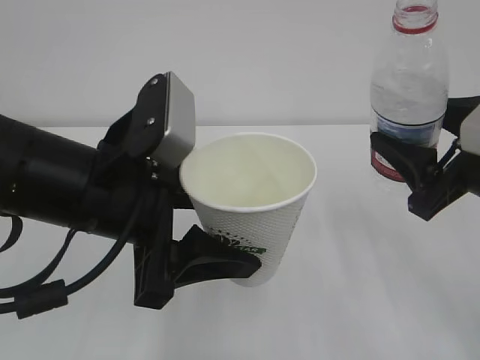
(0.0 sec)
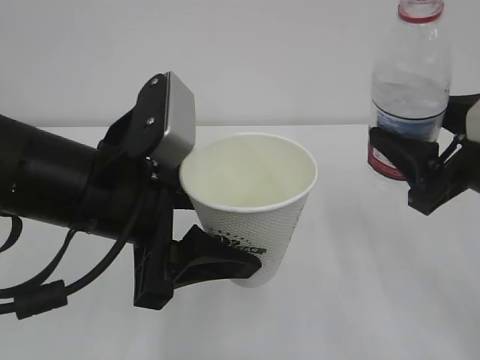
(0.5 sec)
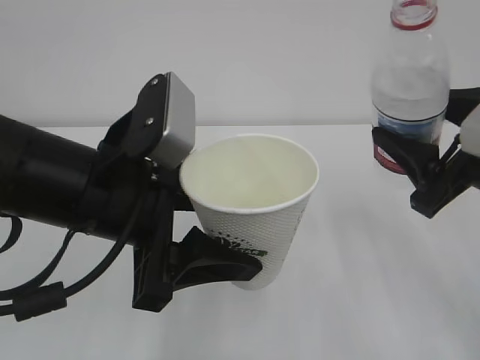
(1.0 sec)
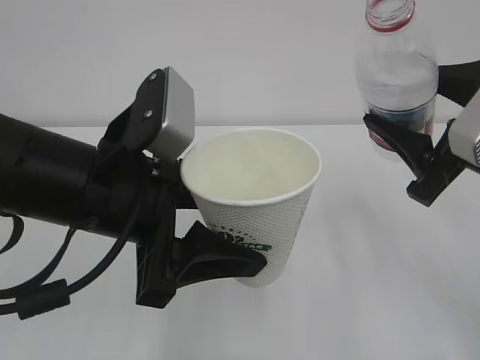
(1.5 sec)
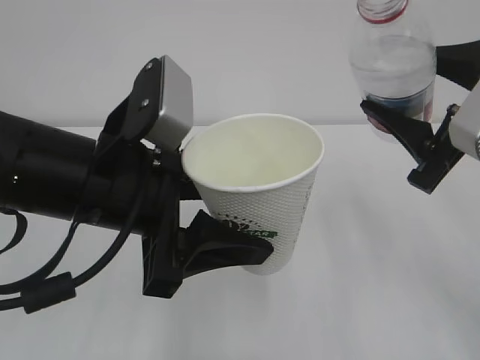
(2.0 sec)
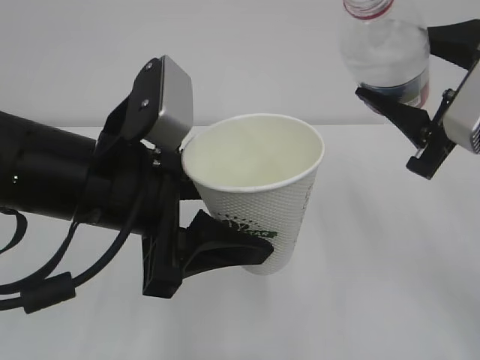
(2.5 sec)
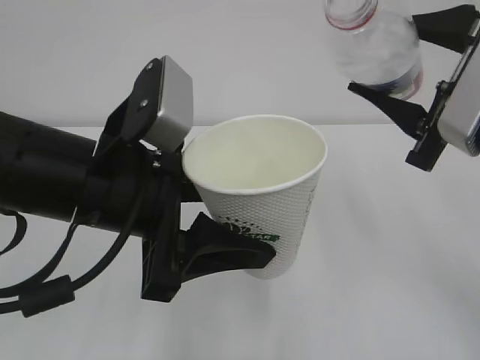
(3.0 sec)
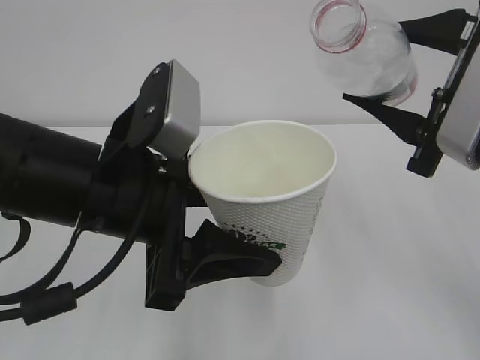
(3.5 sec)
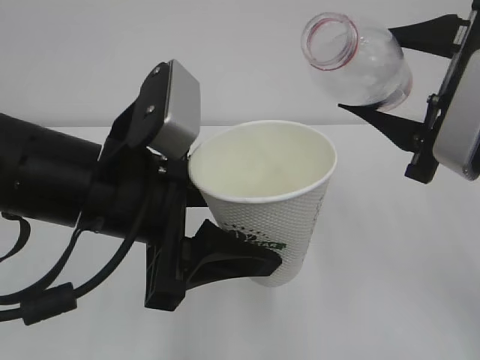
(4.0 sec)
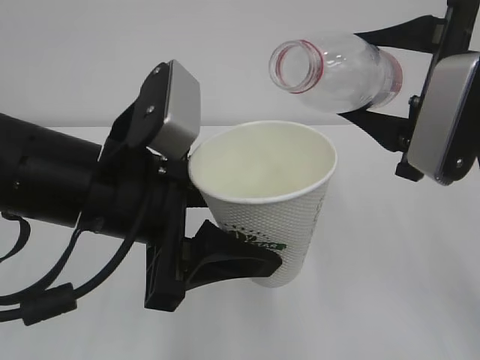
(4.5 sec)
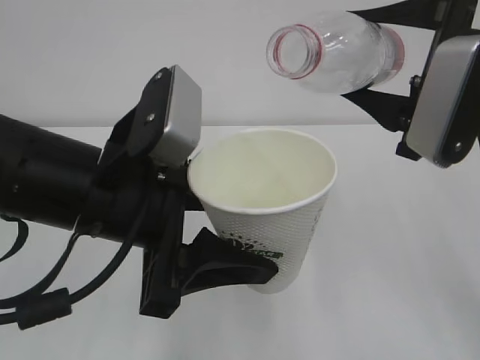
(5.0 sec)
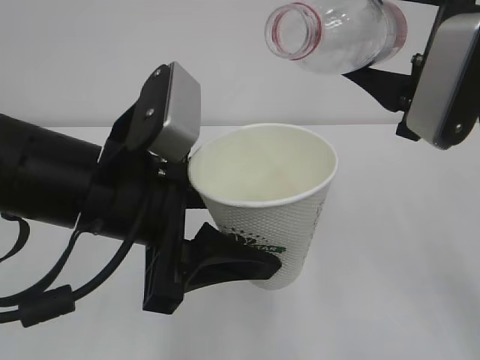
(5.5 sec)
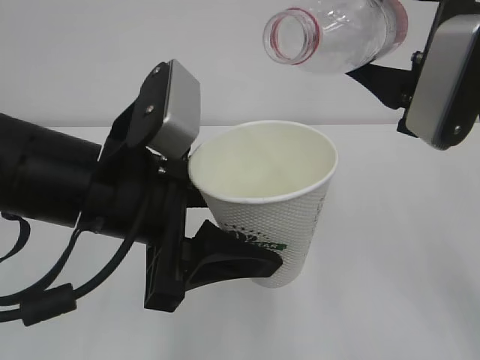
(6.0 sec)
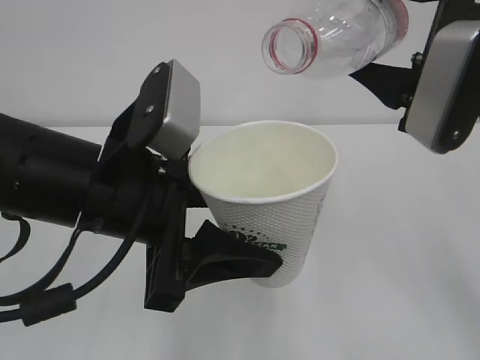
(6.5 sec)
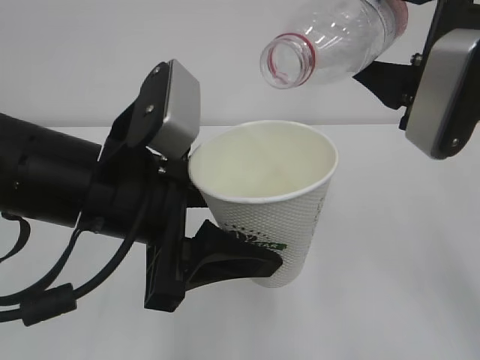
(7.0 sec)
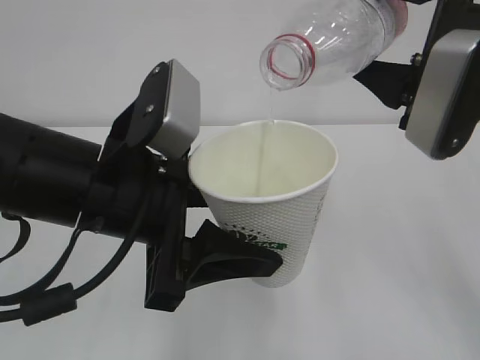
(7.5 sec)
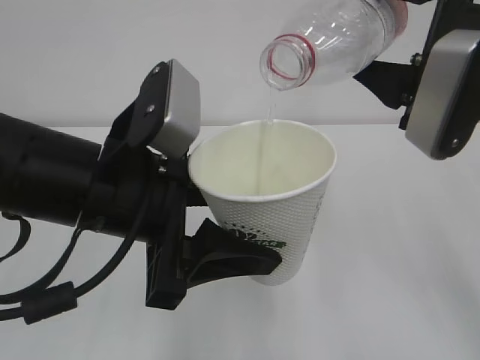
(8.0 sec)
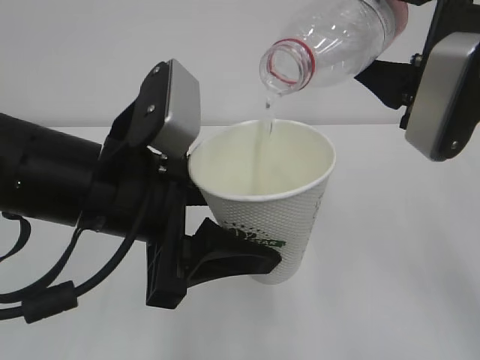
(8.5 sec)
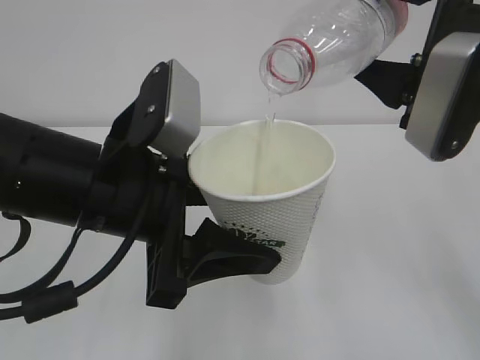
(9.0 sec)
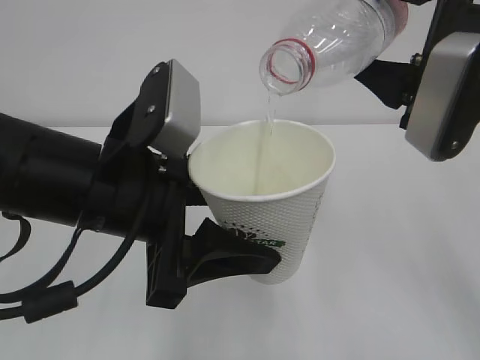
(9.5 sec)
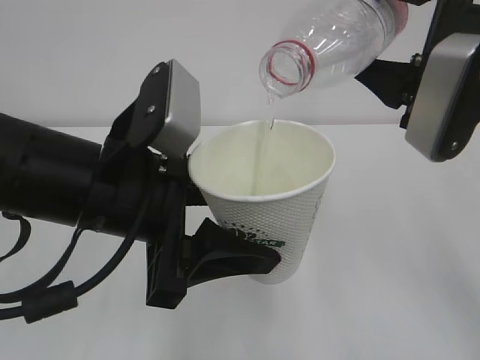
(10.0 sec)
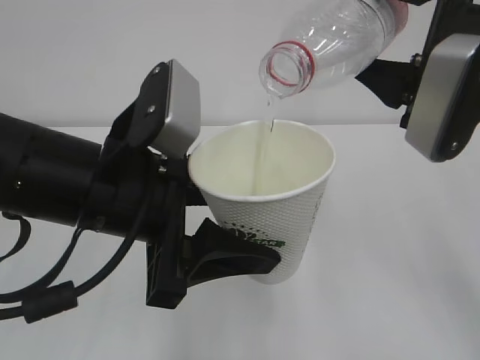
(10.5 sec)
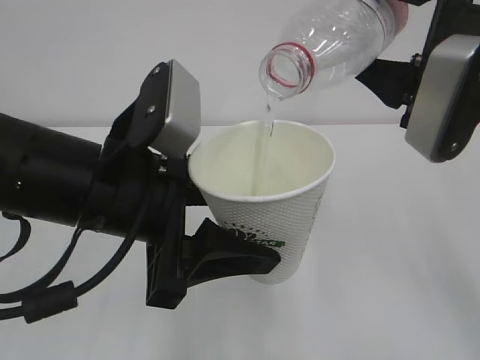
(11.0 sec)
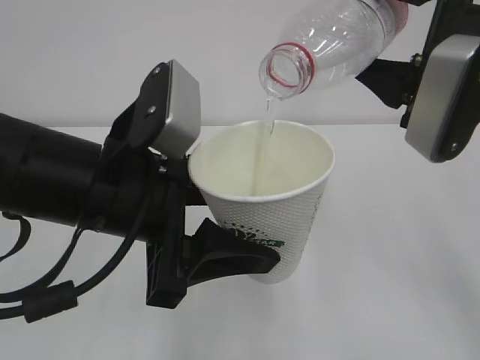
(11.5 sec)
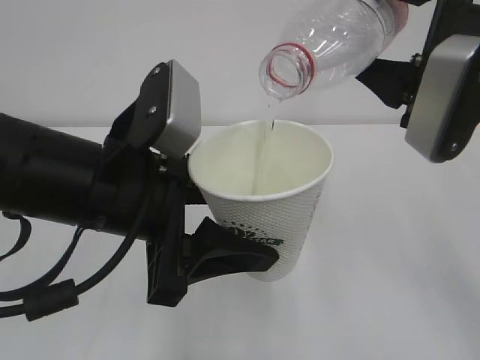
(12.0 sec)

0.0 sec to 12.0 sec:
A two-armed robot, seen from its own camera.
4.0 sec to 6.0 sec: The grippers stay close to where they were, moving slightly.
6.0 sec to 8.0 sec: The grippers stay close to where they were, moving slightly.
8.0 sec to 12.0 sec: Both grippers stay about where they are.

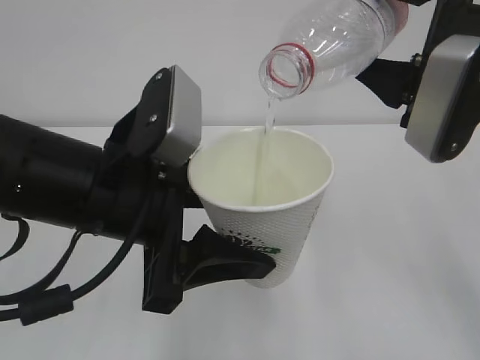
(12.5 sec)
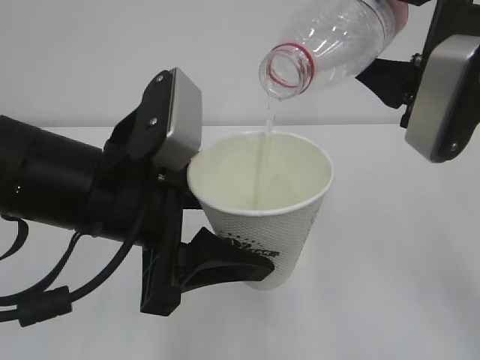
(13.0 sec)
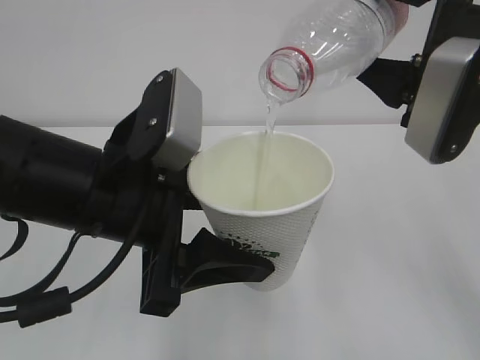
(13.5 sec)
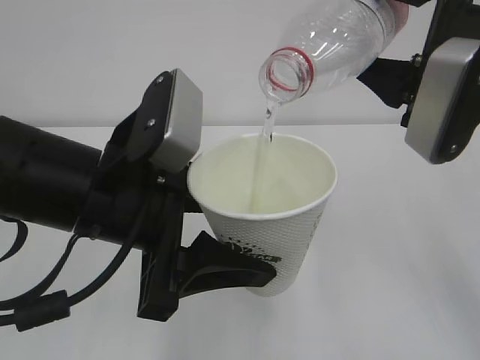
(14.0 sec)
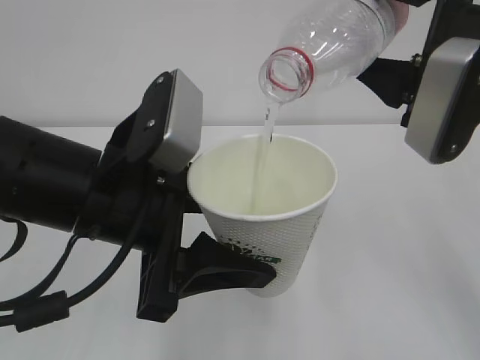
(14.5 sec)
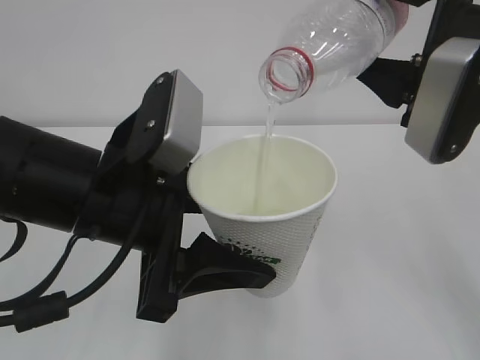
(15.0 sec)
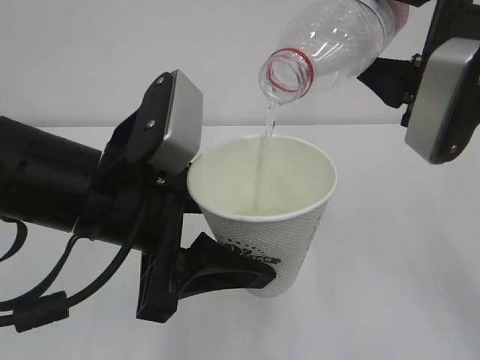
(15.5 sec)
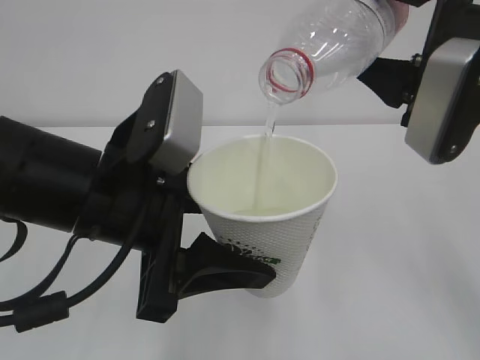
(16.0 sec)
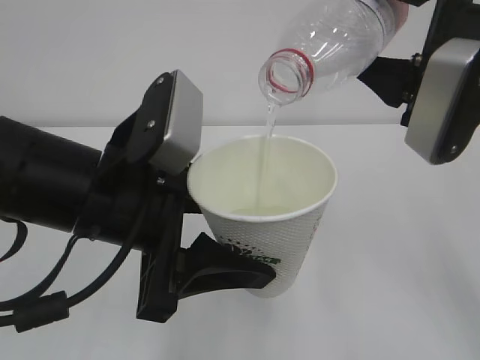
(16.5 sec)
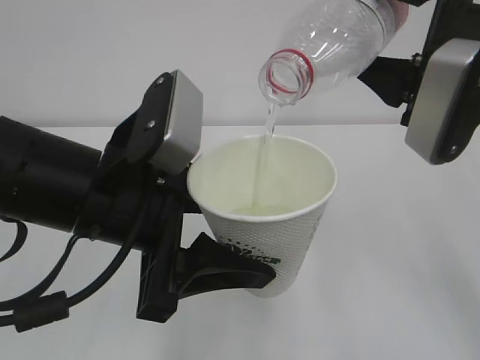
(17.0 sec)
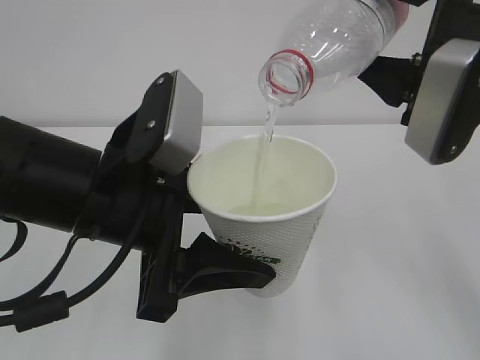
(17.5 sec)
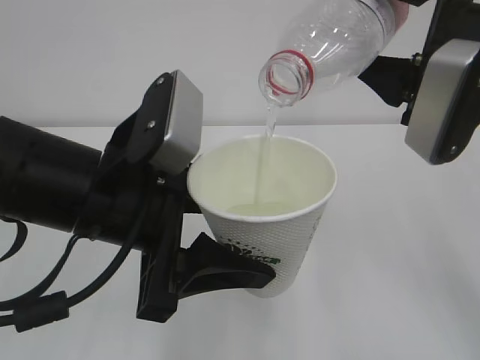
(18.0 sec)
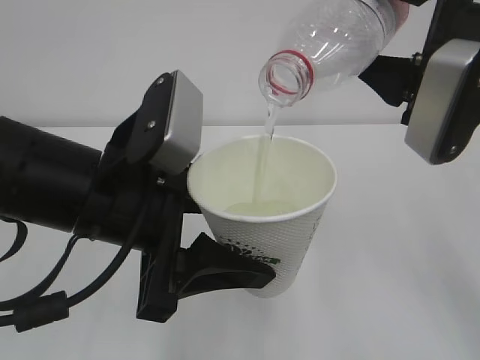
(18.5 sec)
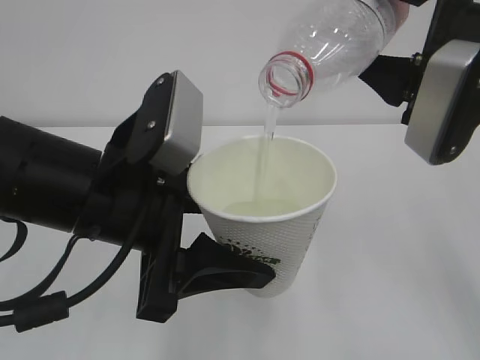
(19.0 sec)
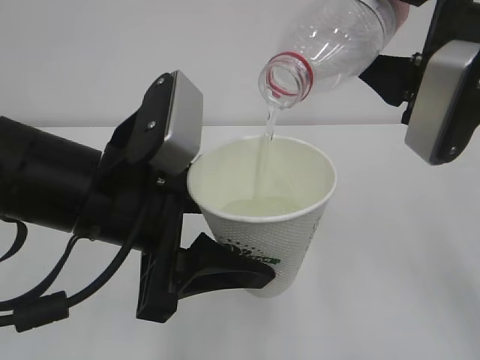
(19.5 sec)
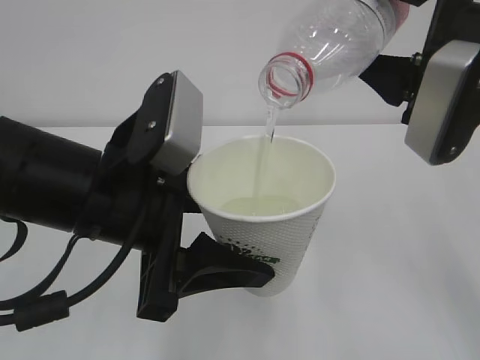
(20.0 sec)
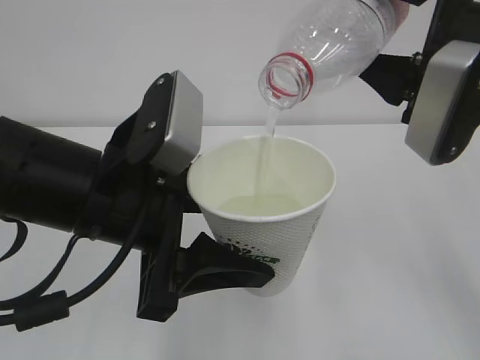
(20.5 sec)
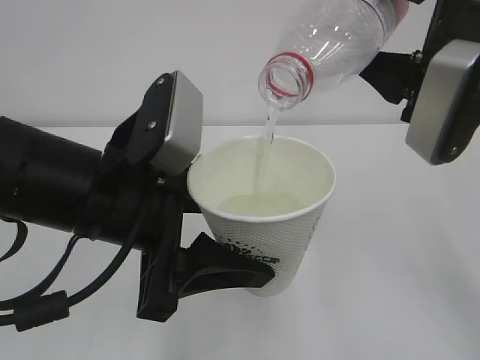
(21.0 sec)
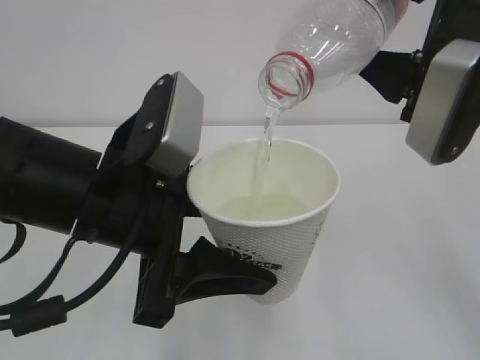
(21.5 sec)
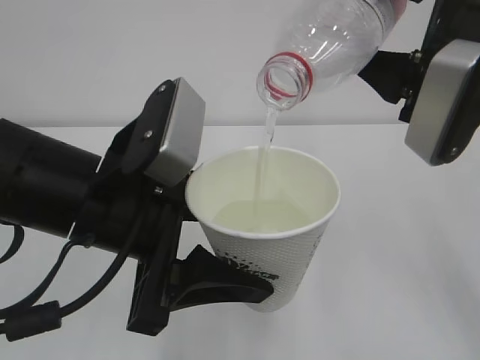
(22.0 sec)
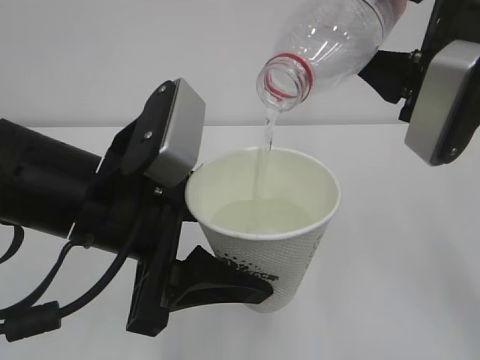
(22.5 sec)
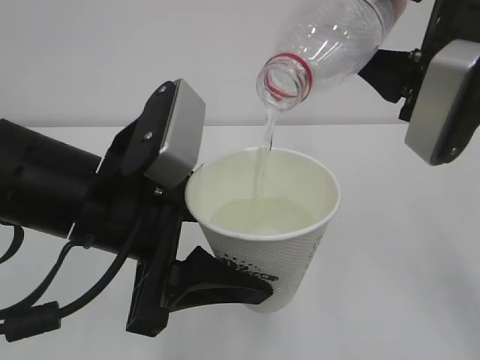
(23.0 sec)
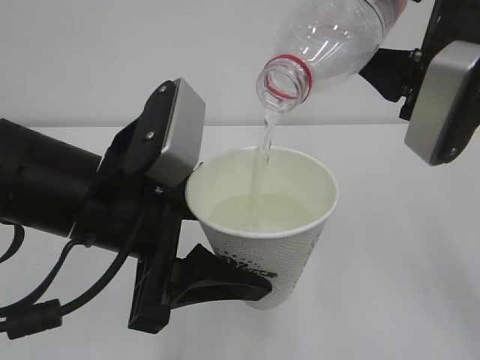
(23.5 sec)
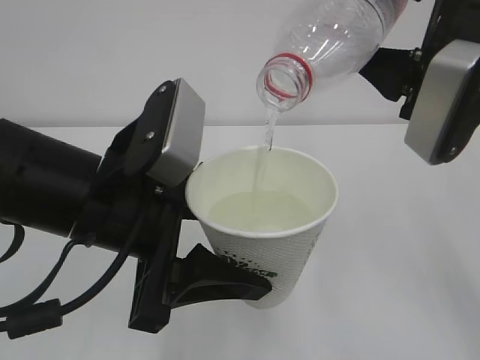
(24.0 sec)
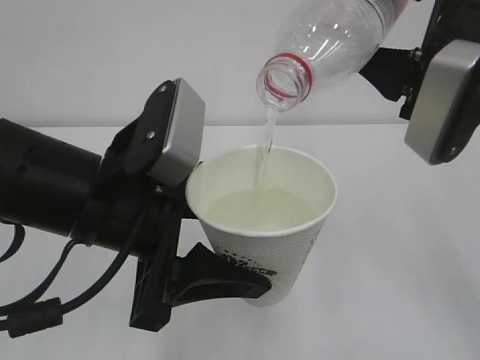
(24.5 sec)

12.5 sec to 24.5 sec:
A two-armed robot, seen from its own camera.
12.5 sec to 20.5 sec: The two grippers keep their place.
20.5 sec to 24.5 sec: Both grippers stay put.

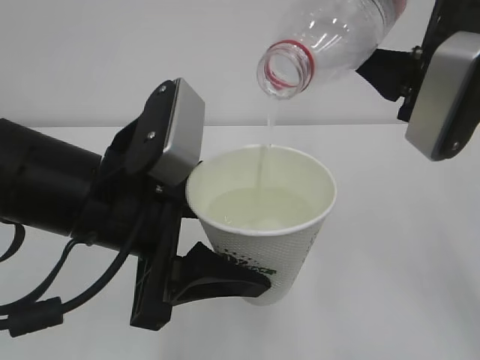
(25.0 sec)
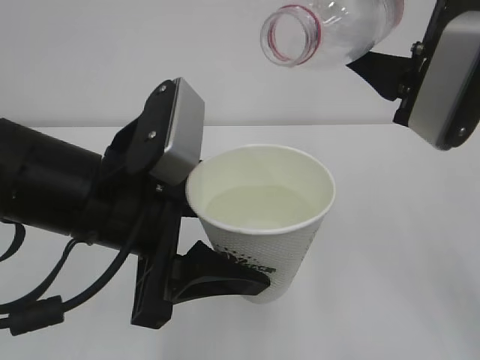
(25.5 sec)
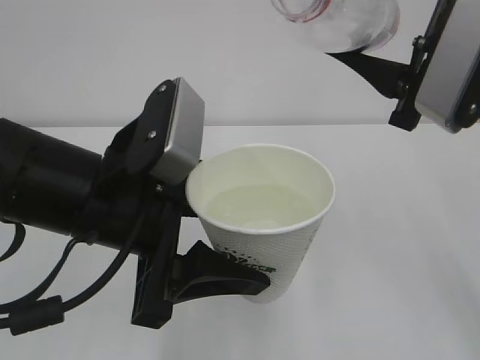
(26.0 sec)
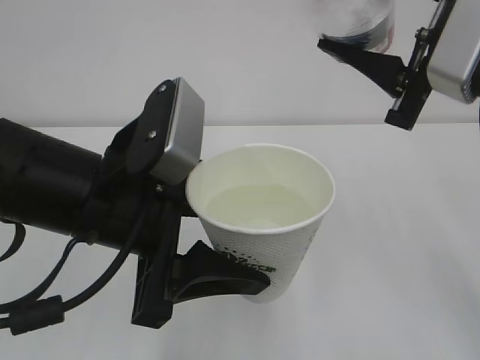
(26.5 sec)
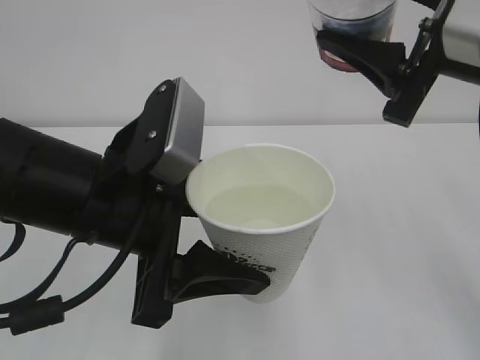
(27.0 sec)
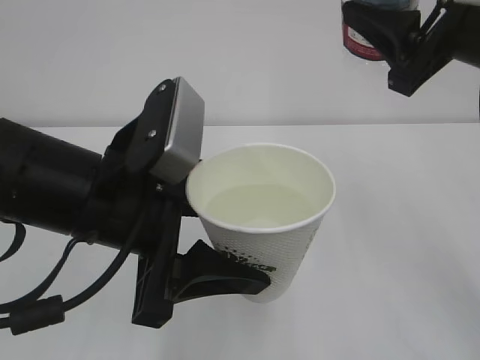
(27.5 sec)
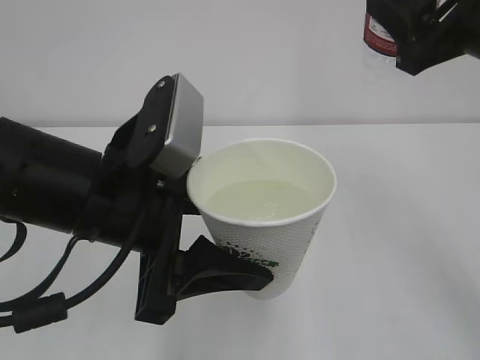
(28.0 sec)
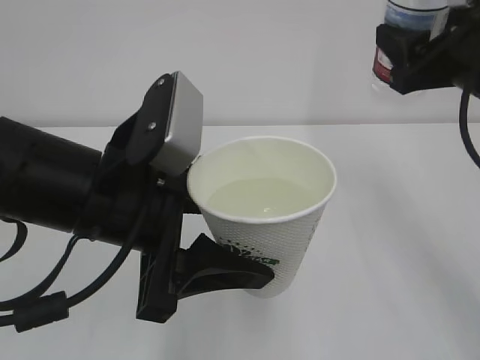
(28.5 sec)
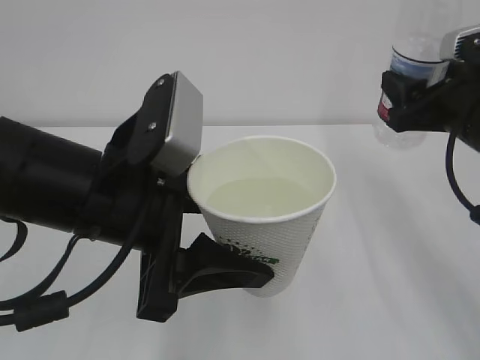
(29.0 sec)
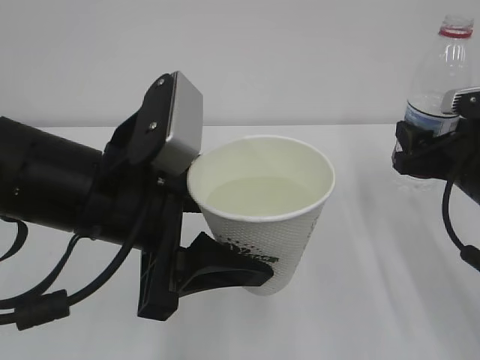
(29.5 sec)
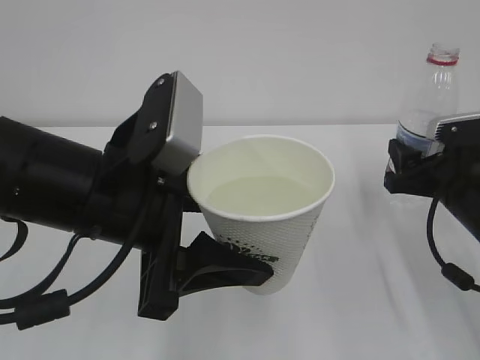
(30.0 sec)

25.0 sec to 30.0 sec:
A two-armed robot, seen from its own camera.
27.5 sec to 30.0 sec: The right gripper travels downward by about 20 cm.
